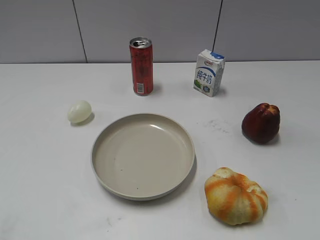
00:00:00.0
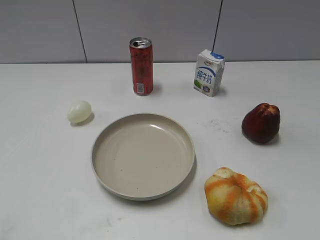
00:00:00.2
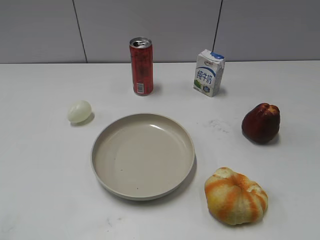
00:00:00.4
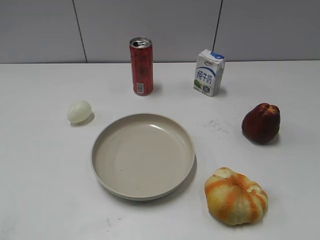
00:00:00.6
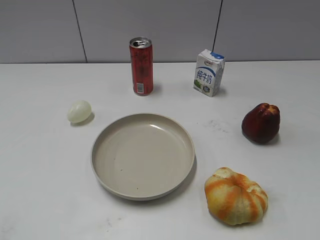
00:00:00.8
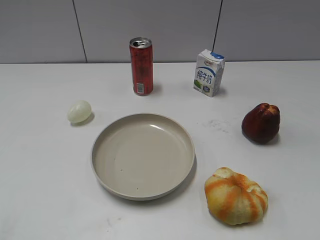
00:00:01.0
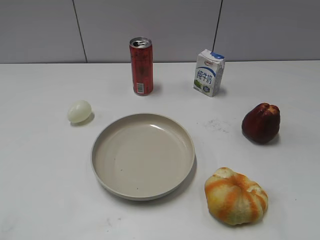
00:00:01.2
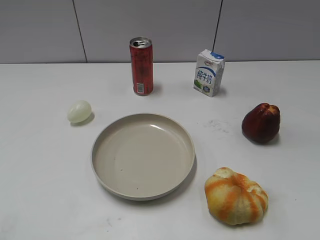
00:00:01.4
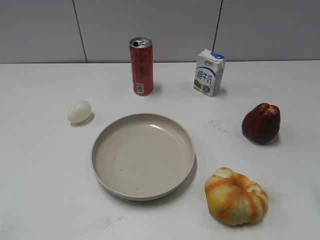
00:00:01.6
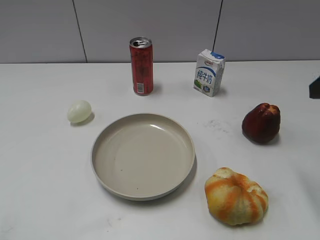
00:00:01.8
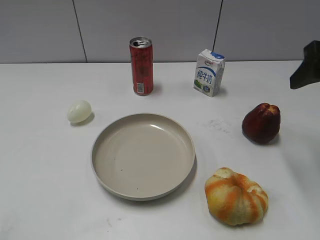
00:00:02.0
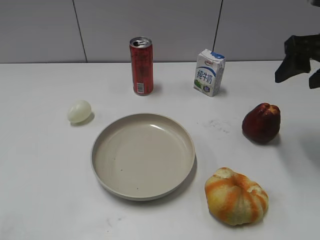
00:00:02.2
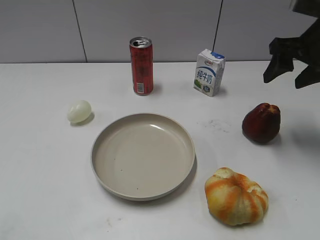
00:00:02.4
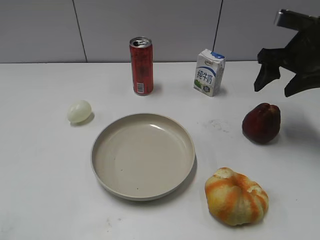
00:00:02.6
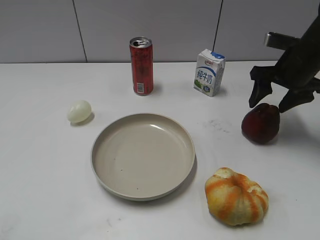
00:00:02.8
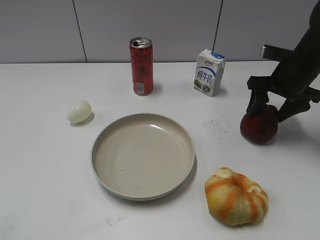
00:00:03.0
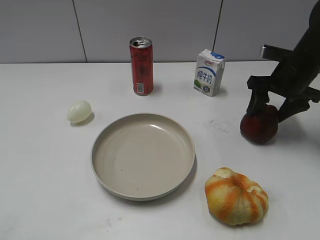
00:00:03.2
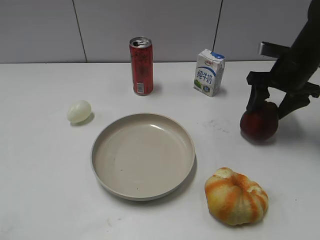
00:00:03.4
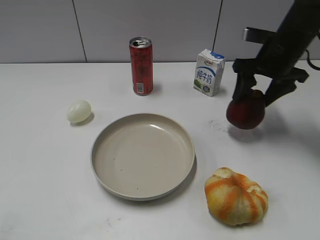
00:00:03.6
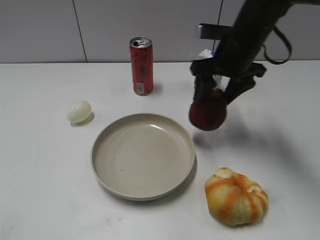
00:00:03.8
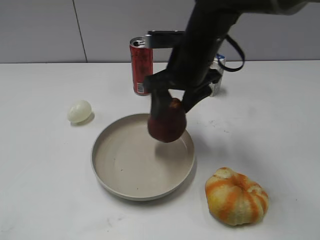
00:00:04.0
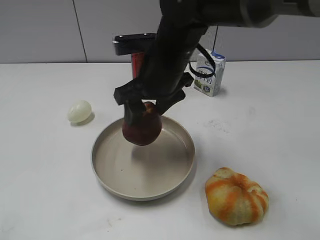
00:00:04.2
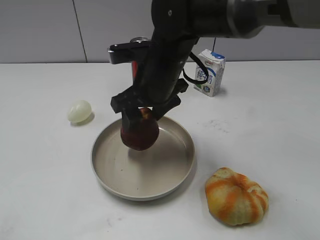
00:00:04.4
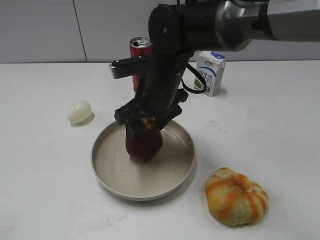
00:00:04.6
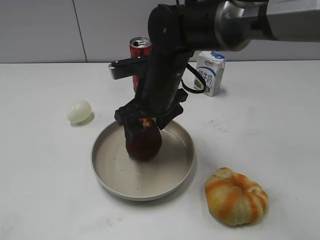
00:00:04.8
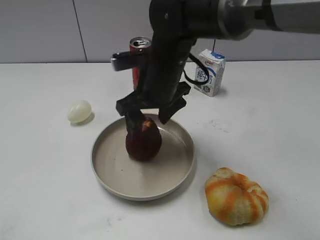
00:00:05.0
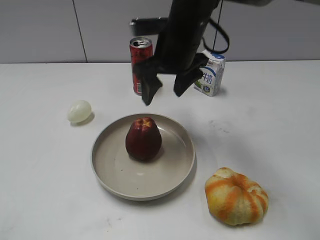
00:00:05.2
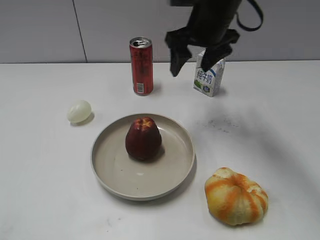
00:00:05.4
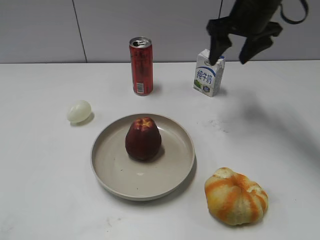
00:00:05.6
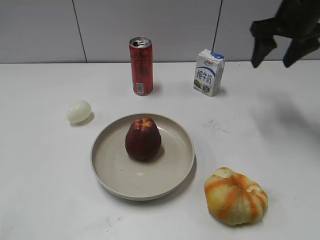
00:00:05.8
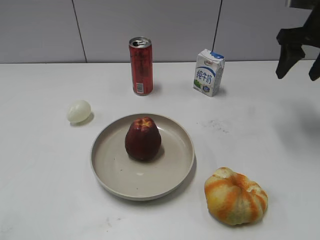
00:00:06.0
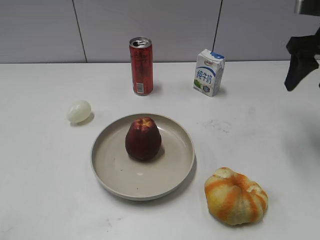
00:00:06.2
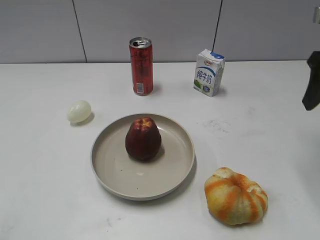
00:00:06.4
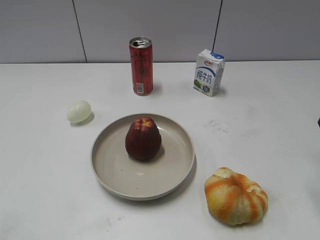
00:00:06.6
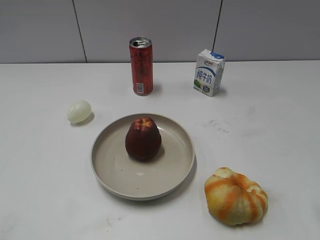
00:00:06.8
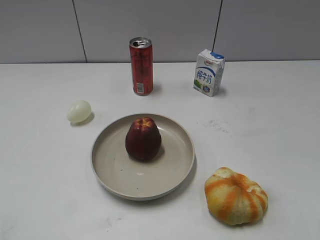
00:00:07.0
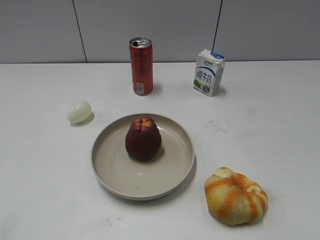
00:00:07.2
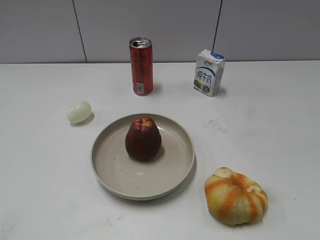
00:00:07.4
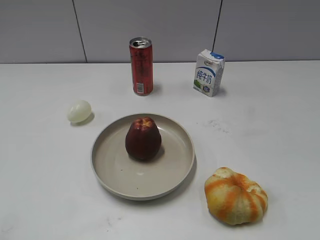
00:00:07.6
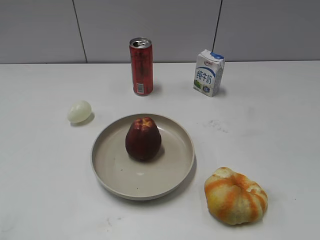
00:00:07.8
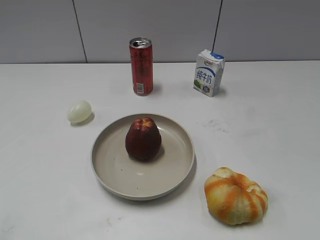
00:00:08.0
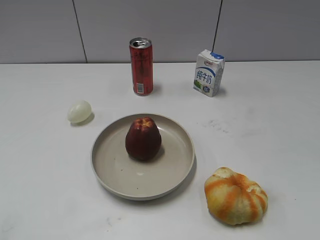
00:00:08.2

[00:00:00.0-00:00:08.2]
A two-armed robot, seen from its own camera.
Step, 00:00:00.8 to 00:00:03.2: Grasp the apple with right gripper.
Step, 00:00:03.4 to 00:00:05.0: Place the apple on the plate with right gripper.
00:00:01.6 to 00:00:03.2: The right gripper moves forward and downward, some 25 cm.
00:00:03.2 to 00:00:05.0: The right gripper is displaced to the left by some 25 cm.
00:00:05.0 to 00:00:06.6: The right gripper heads to the right, covering some 25 cm.
